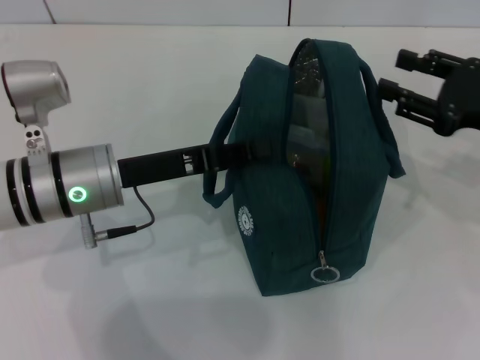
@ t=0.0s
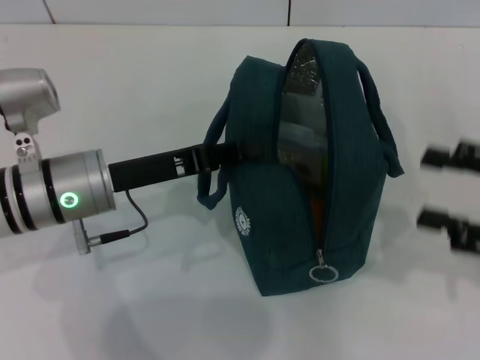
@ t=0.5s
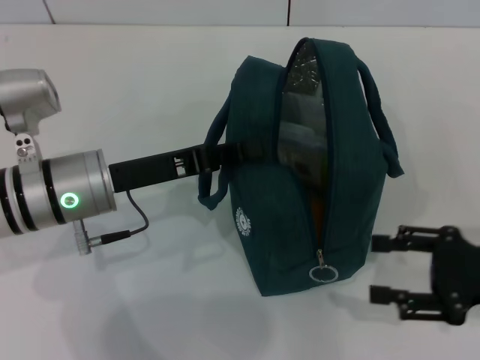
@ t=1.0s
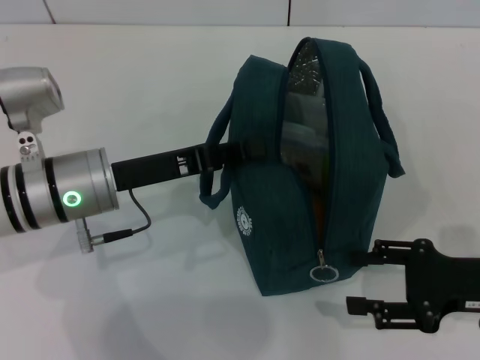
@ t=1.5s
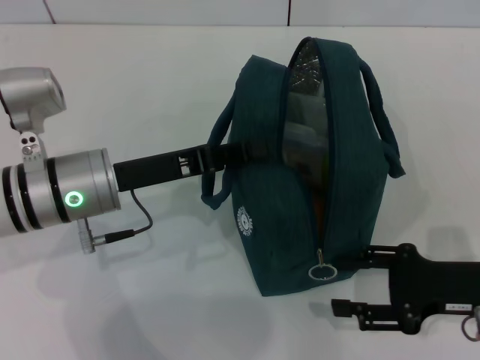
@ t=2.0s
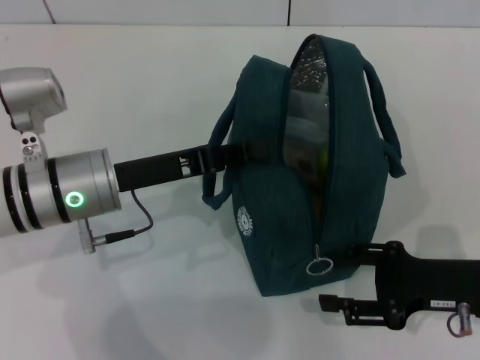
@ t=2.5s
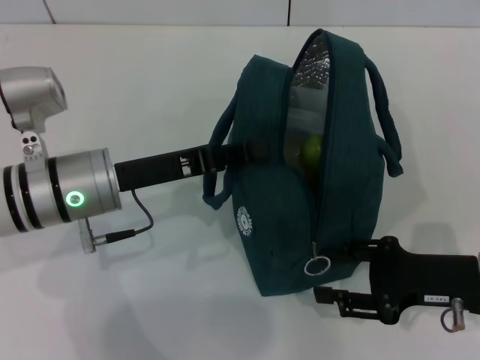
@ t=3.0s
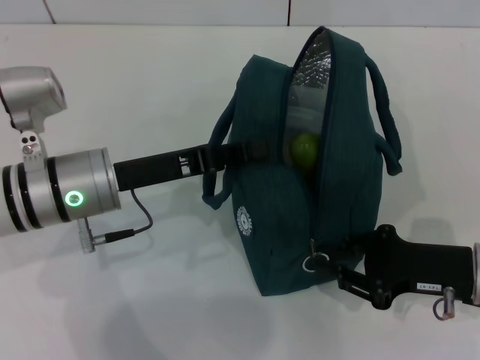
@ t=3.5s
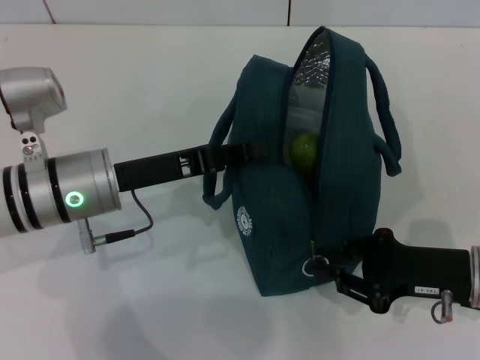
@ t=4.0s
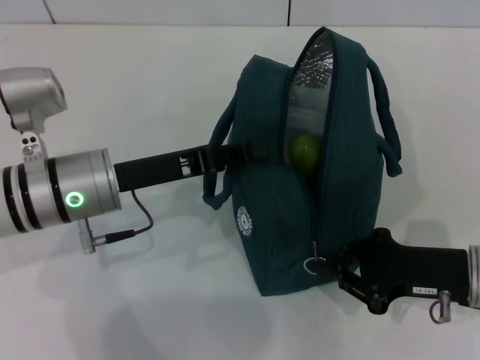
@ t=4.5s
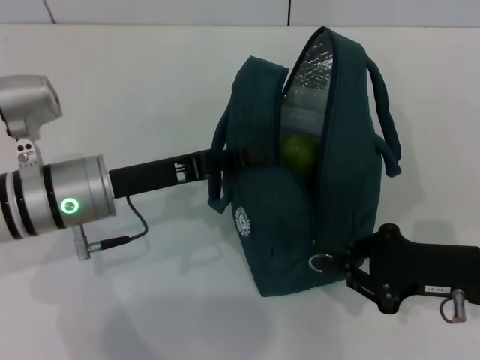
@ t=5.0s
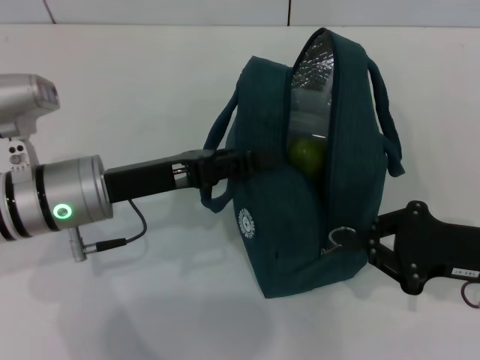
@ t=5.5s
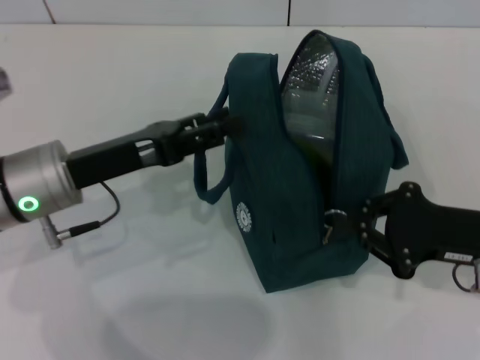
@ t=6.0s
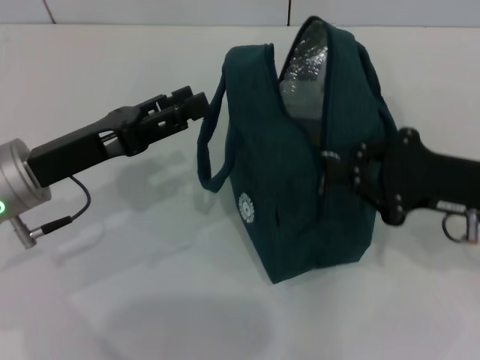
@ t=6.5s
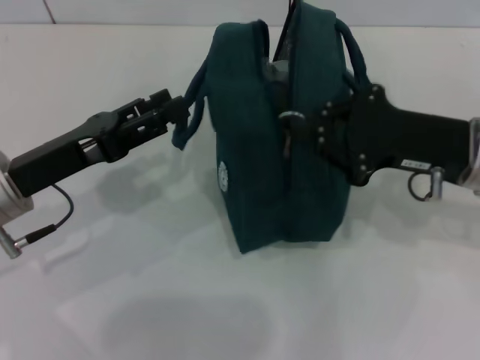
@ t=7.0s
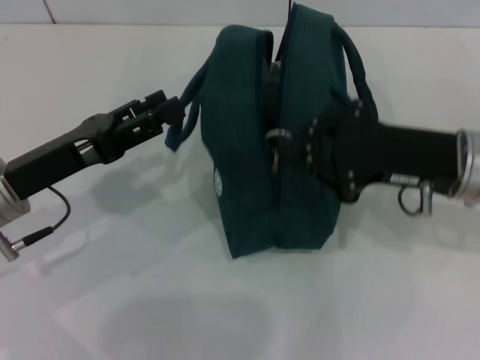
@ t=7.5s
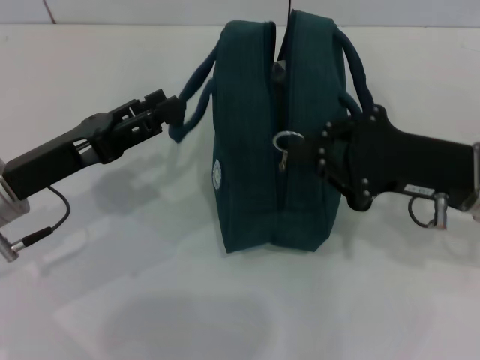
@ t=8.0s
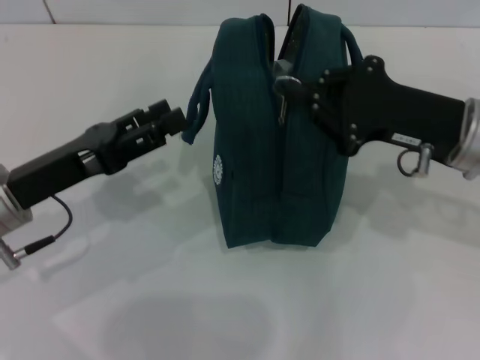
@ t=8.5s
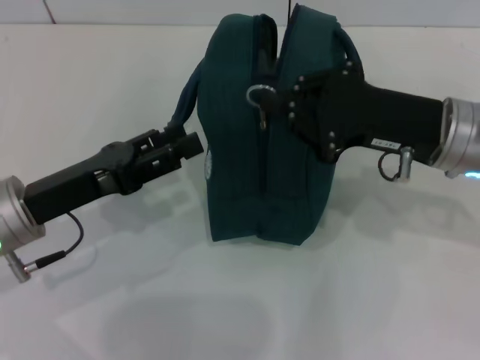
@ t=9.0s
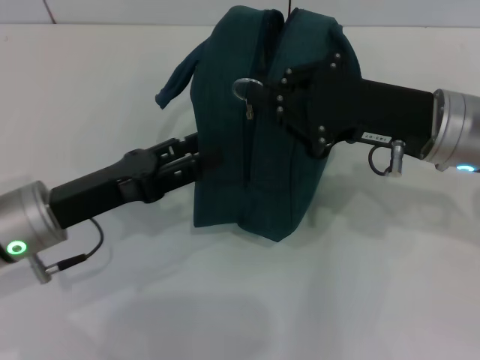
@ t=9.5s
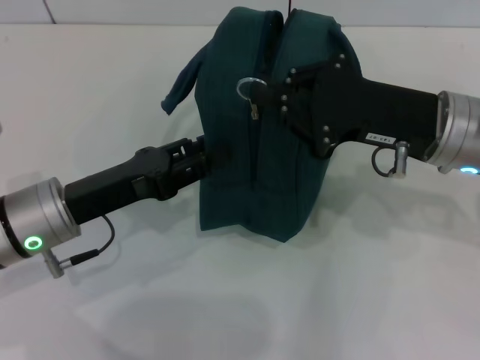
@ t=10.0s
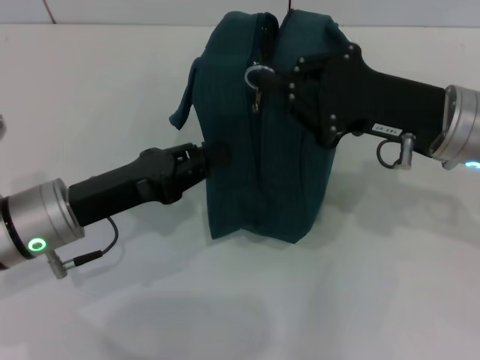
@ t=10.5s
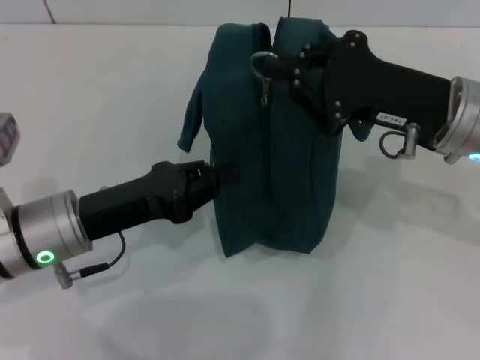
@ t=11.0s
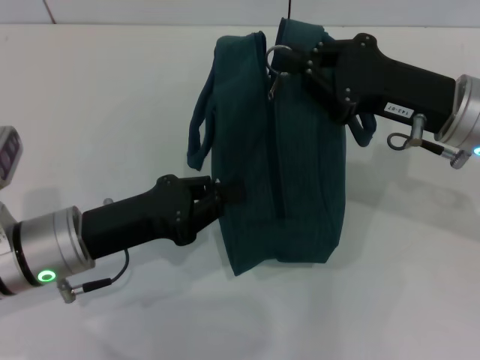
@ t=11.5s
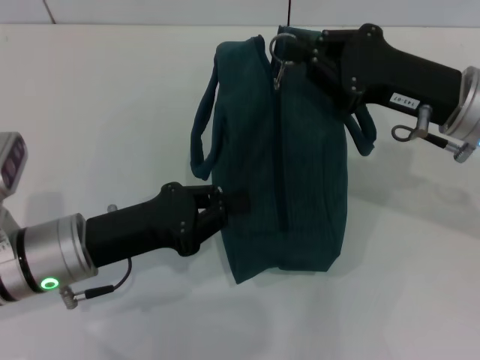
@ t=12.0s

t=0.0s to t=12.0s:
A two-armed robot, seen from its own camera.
Step, t=0.0s to t=6.0s: Hold the lunch bag with your left hand.
t=0.0s to t=2.0s: The right gripper heads downward and backward, covering approximately 10 cm.
t=2.0s to t=4.0s: The right gripper closes its fingers.
t=4.0s to t=6.0s: The left gripper opens up.
t=6.0s to t=8.0s: The right gripper ends up some 5 cm from where it was.
t=10.0s to t=12.0s: The left gripper closes.

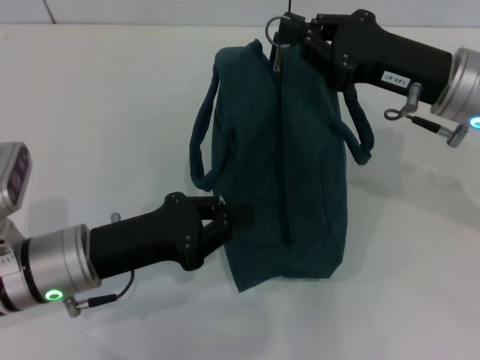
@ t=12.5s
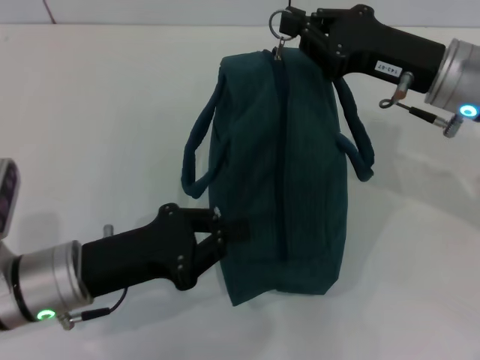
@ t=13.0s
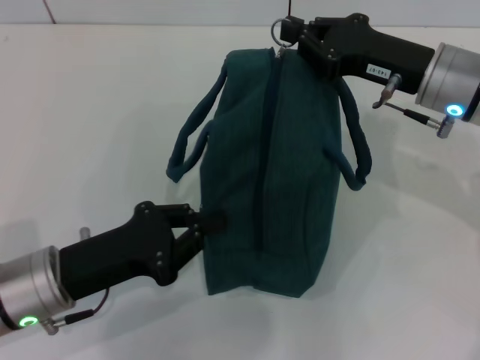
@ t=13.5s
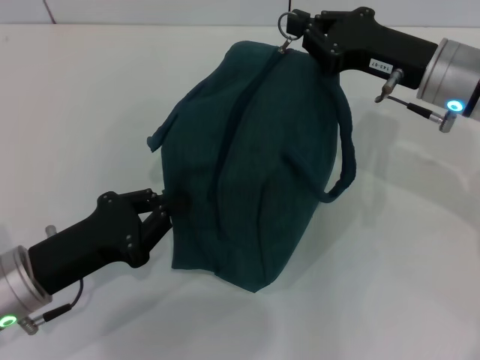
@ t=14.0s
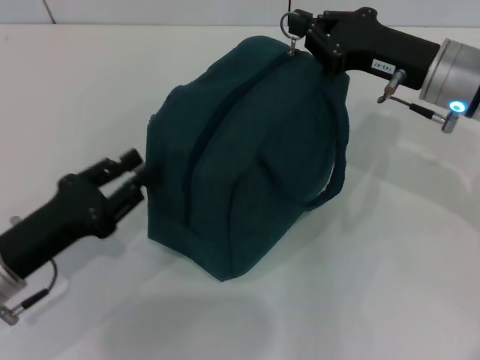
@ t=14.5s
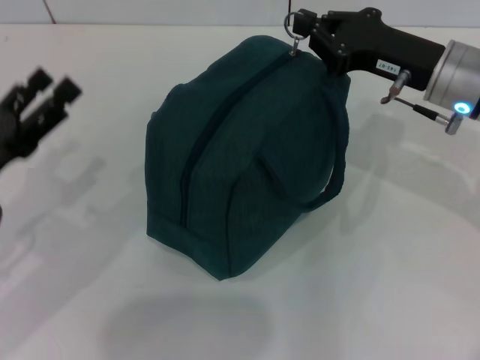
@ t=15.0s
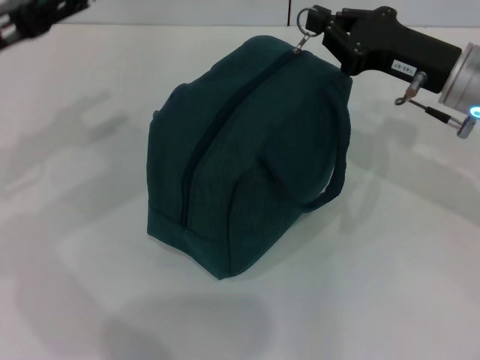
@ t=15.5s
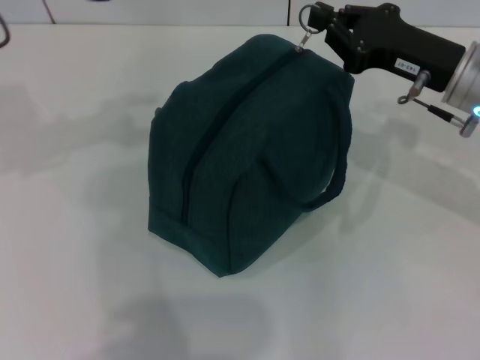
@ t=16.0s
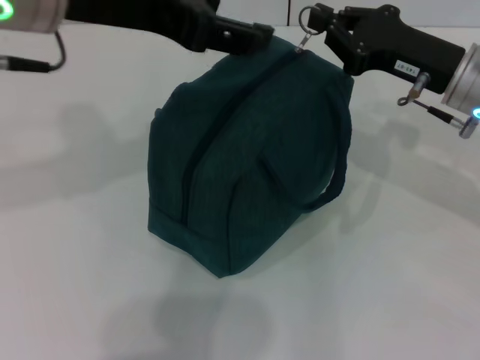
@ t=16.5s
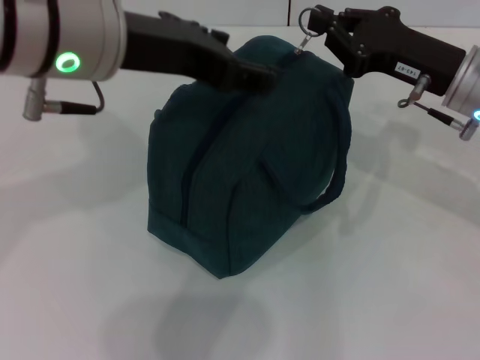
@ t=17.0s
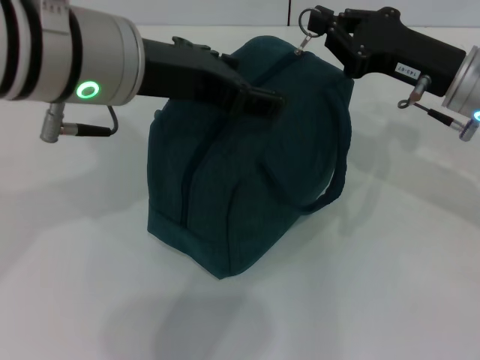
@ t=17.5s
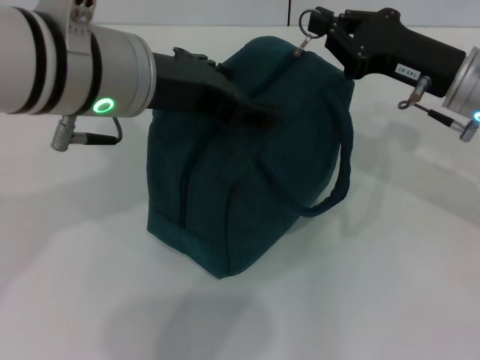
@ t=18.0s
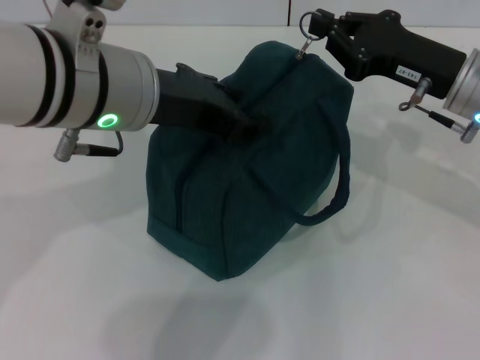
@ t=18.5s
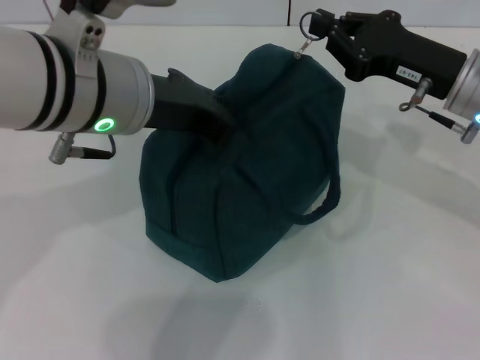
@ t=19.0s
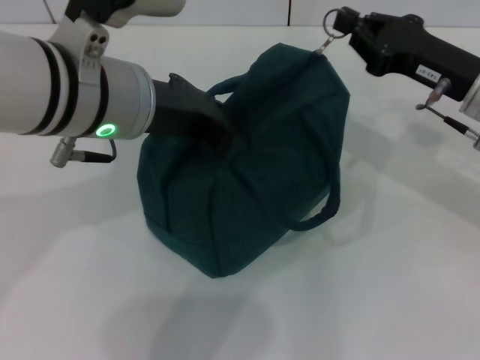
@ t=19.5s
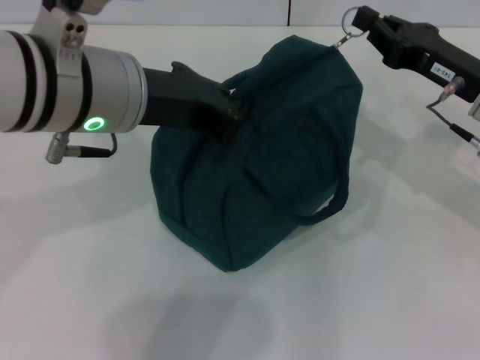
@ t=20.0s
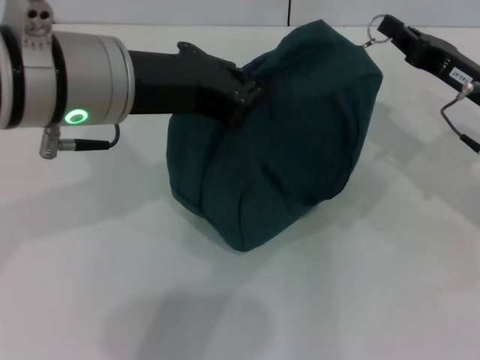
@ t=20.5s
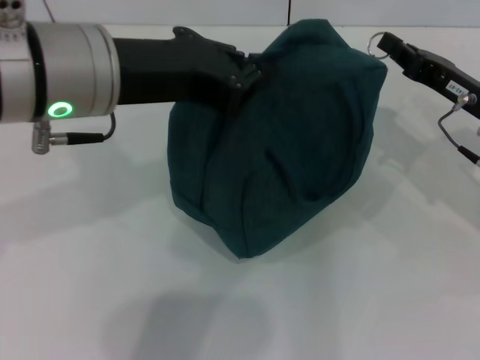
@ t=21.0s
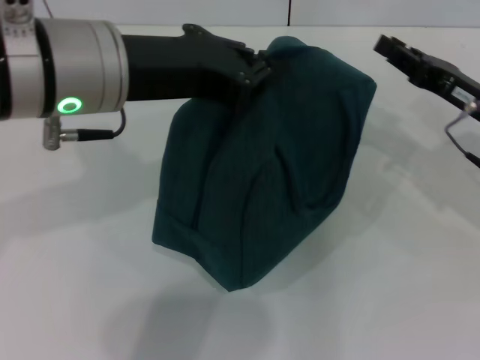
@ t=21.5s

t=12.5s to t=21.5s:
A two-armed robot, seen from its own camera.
Step, t=12.5s to t=21.0s: Zip up the lunch bag with your right hand.
t=12.5s to t=14.5s: The left gripper shifts some 5 cm to the left.
t=14.5s to t=17.0s: The left gripper is displaced upward, to the right and forward by some 25 cm, and opens its fingers.
t=17.0s to t=19.5s: The left gripper goes roughly 5 cm downward, and closes its fingers.
t=19.5s to t=21.5s: The right gripper ends up approximately 5 cm from where it was.

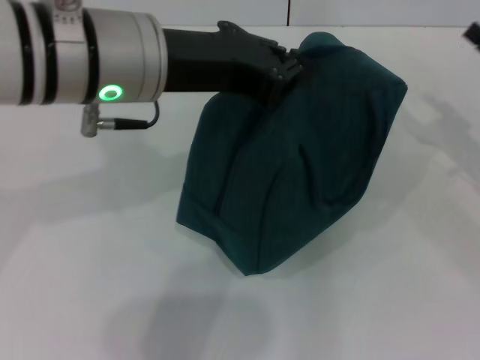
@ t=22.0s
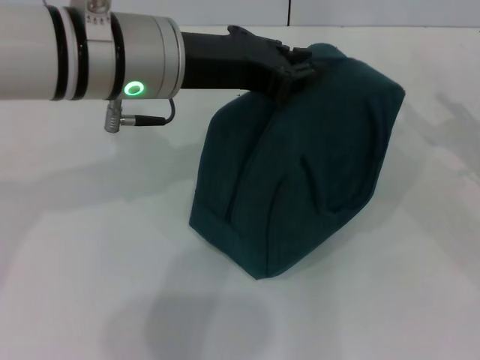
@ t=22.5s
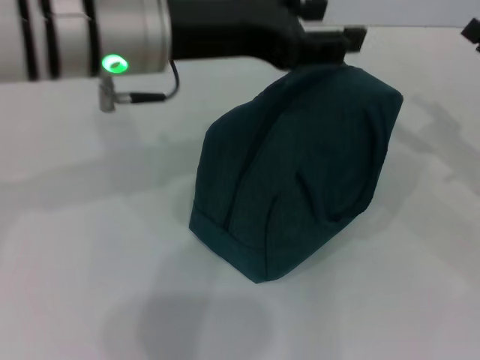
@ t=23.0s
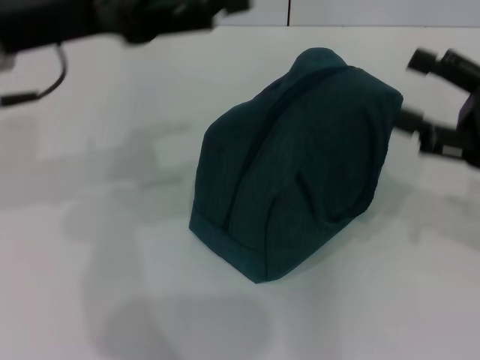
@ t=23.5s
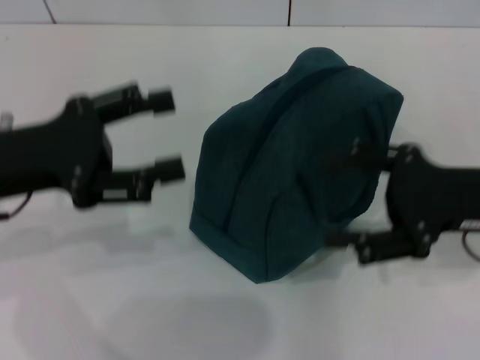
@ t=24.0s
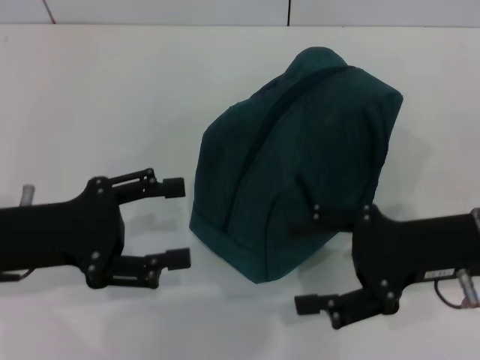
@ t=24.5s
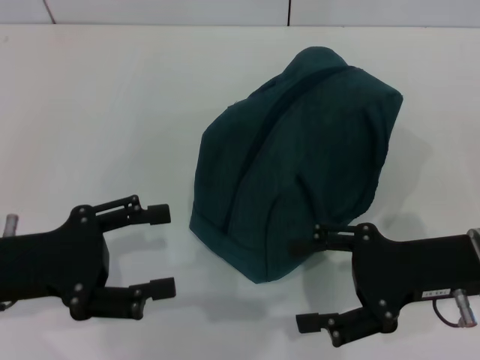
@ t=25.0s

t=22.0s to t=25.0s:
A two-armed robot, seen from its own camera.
t=22.0s to t=23.5s: The left gripper travels to the left by about 10 cm, and opens up. The right gripper changes place by roughly 5 cm, and opens up.
t=23.5s to t=25.0s: The left gripper moves downward and backward, some 15 cm. Meanwhile the right gripper travels to the left by roughly 5 cm.

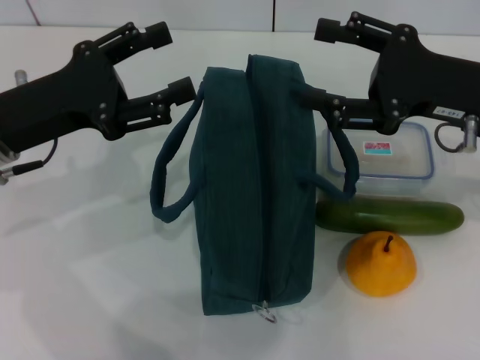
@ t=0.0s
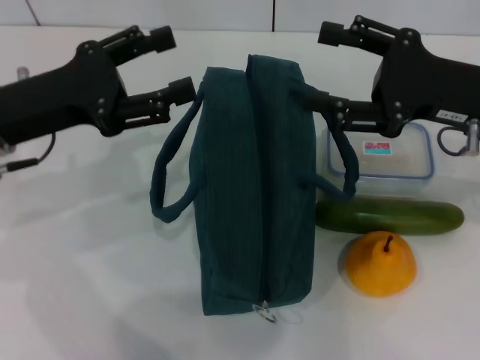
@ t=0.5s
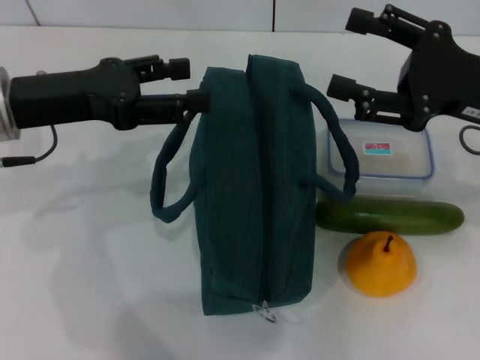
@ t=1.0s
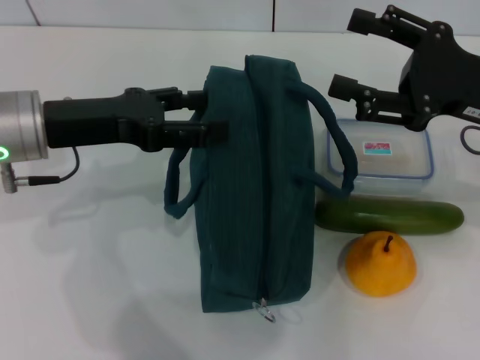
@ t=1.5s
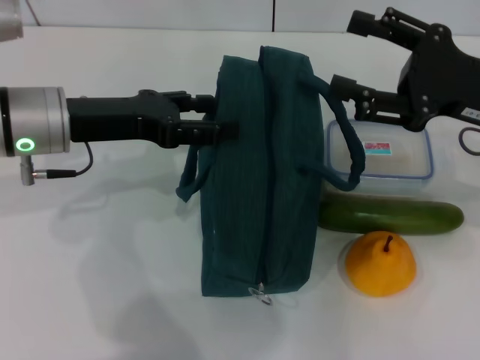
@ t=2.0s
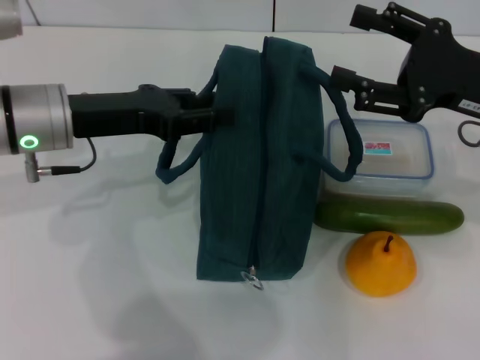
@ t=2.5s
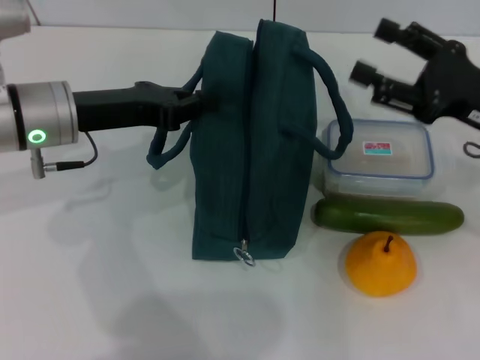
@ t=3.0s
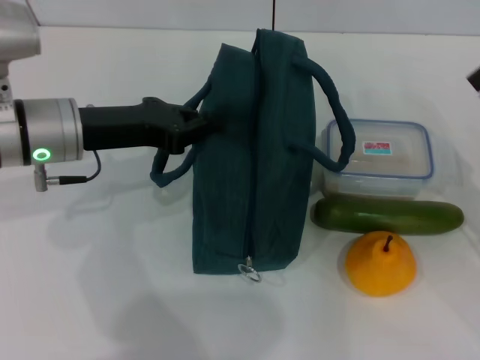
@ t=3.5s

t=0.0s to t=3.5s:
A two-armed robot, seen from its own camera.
Step, t=0.0s to t=3.0s: Hold the lunch bag with your left hand.
t=0.0s to t=2.0s: The left gripper ends up about 5 cm from where it was.
t=2.0s to t=3.5s: The right gripper travels downward, to the right and backward by some 15 cm; the left gripper closes its fingers.
